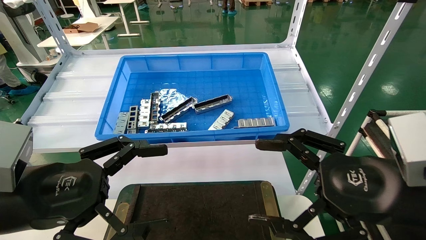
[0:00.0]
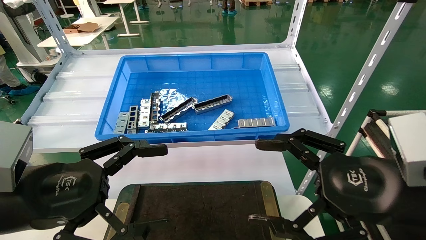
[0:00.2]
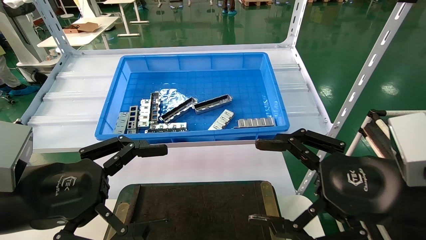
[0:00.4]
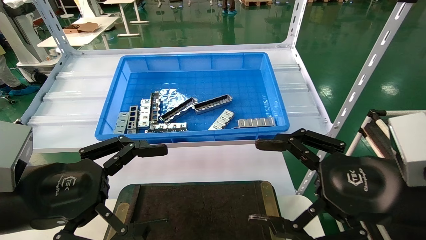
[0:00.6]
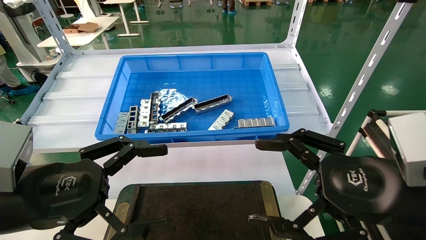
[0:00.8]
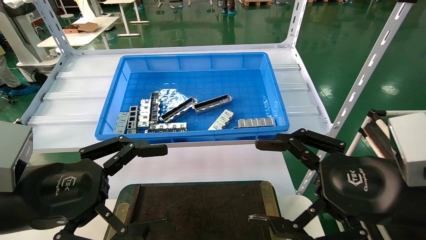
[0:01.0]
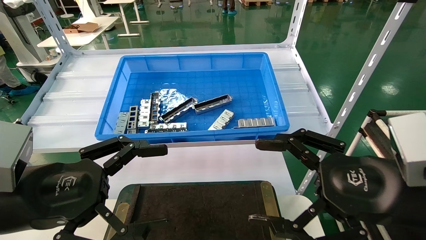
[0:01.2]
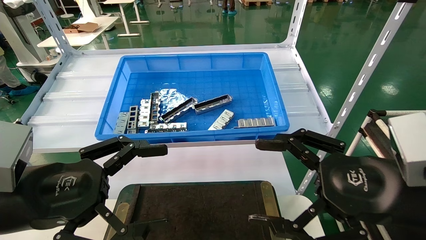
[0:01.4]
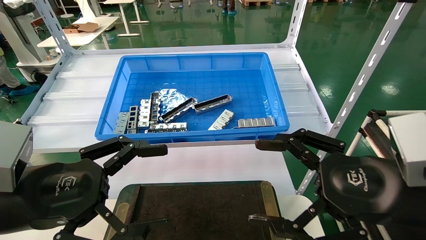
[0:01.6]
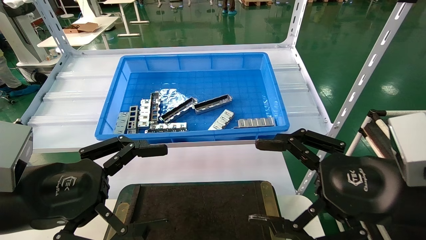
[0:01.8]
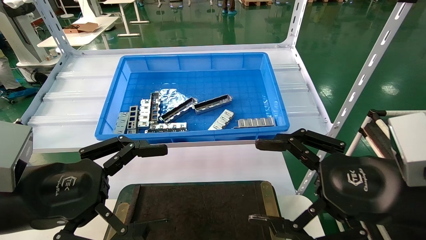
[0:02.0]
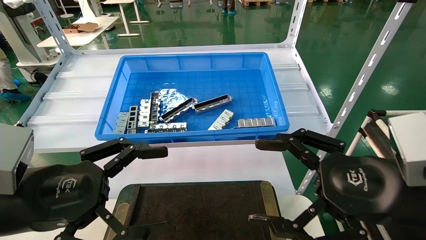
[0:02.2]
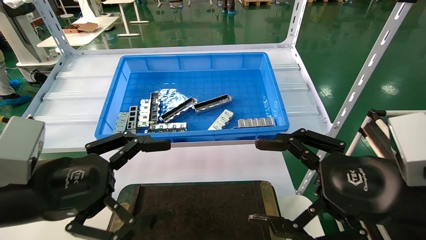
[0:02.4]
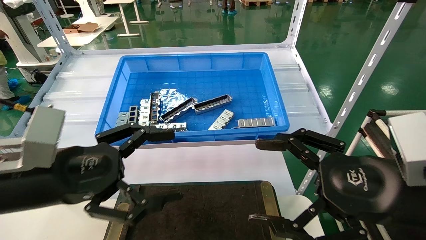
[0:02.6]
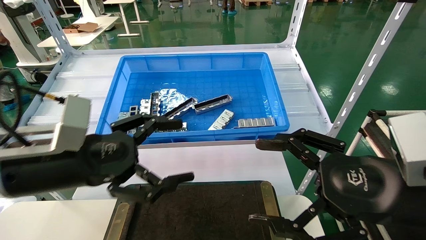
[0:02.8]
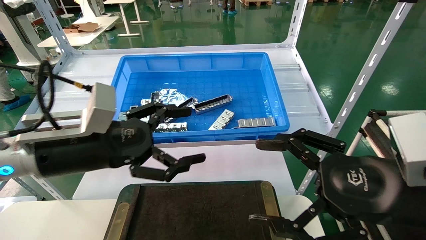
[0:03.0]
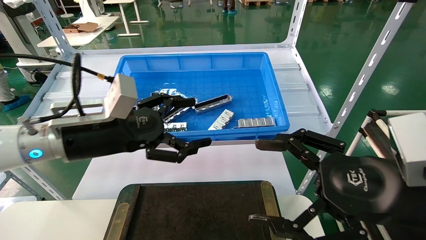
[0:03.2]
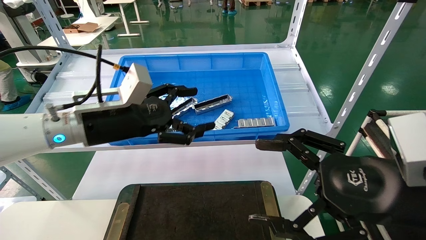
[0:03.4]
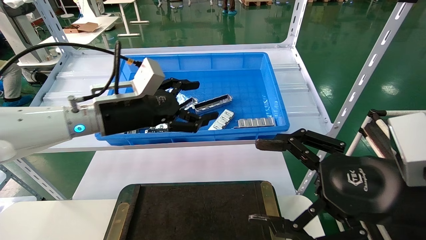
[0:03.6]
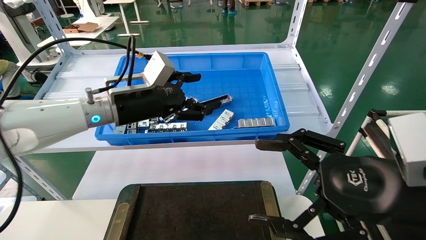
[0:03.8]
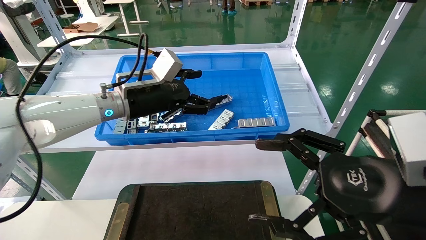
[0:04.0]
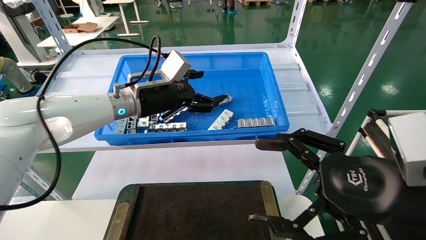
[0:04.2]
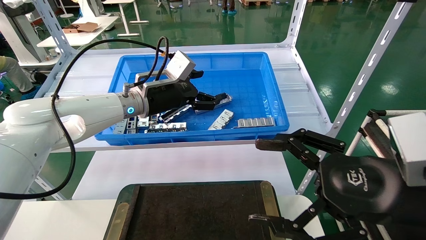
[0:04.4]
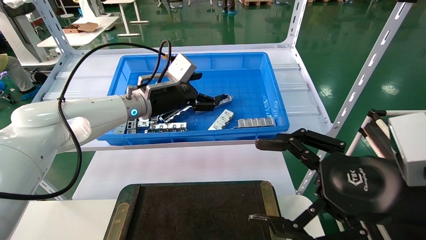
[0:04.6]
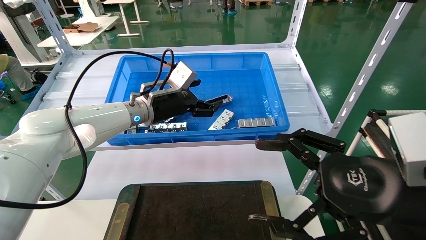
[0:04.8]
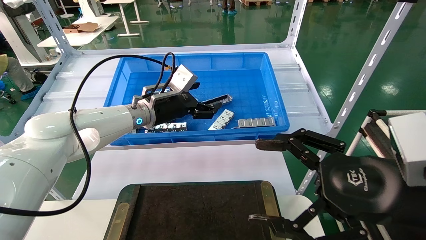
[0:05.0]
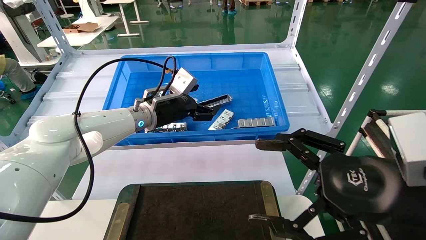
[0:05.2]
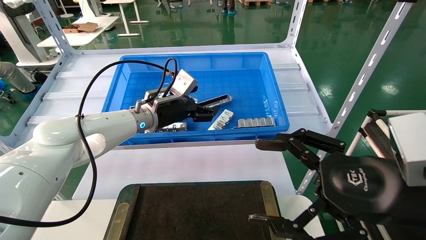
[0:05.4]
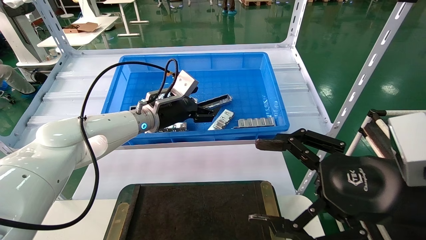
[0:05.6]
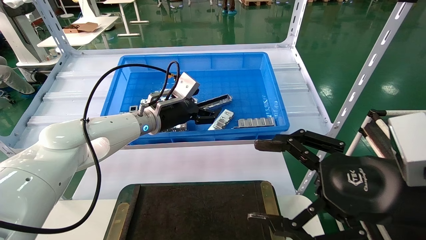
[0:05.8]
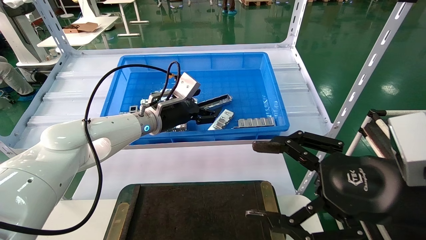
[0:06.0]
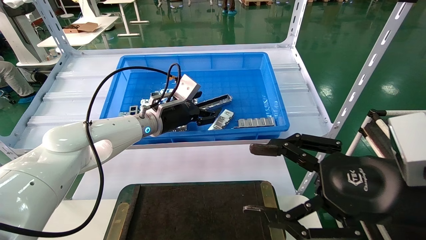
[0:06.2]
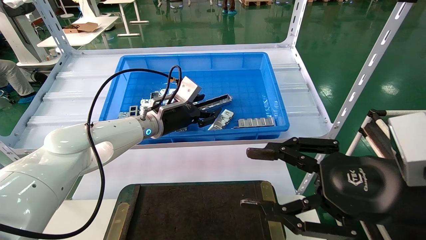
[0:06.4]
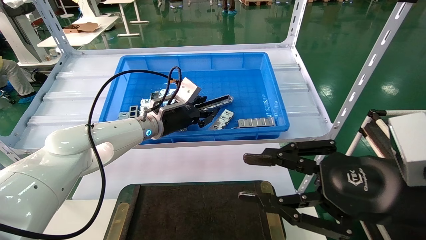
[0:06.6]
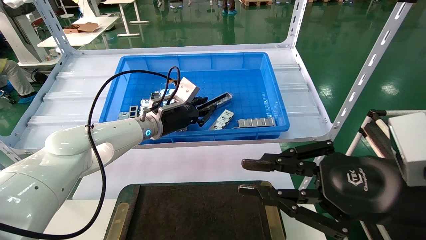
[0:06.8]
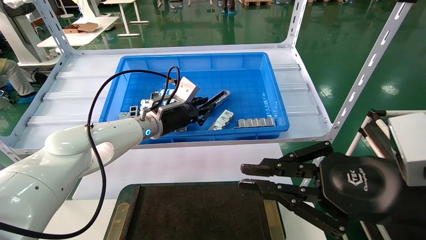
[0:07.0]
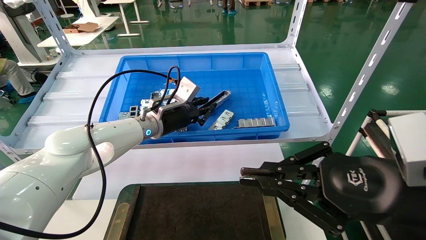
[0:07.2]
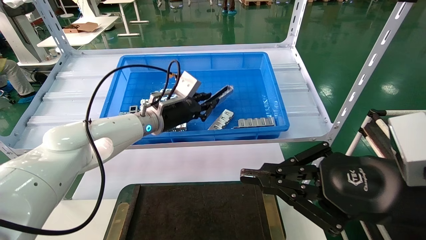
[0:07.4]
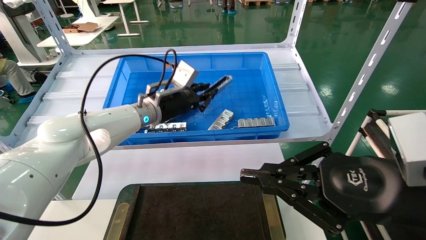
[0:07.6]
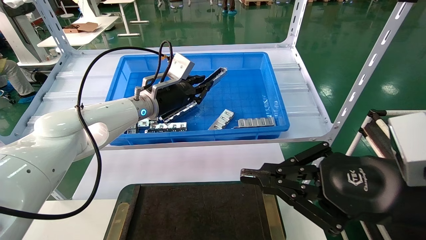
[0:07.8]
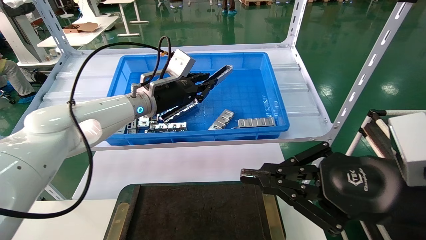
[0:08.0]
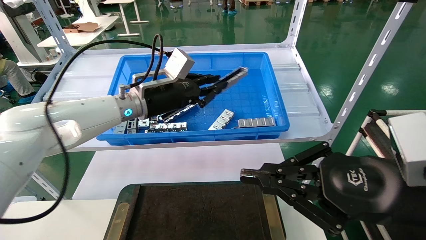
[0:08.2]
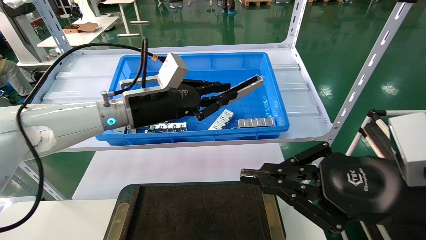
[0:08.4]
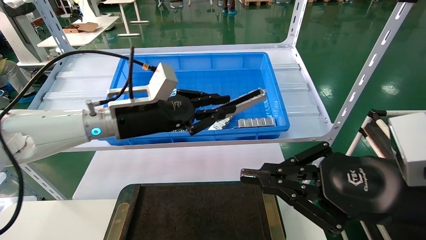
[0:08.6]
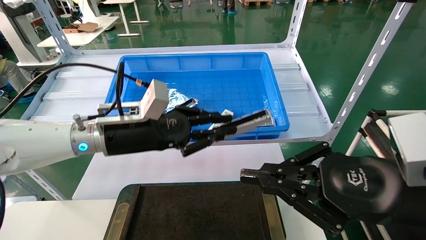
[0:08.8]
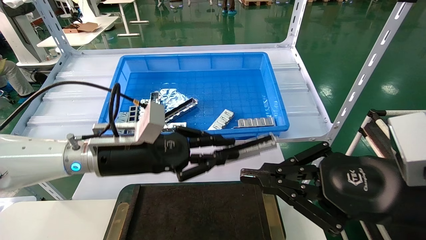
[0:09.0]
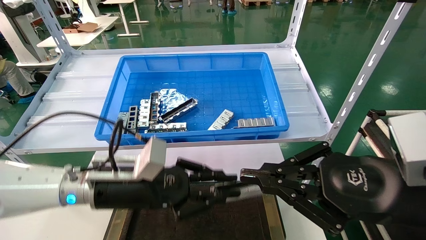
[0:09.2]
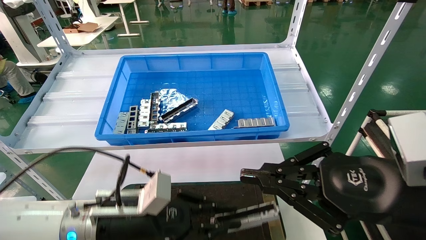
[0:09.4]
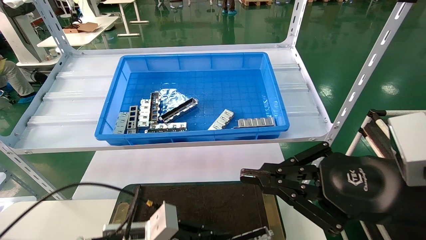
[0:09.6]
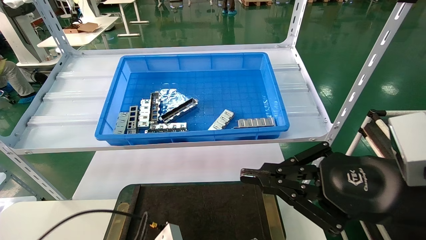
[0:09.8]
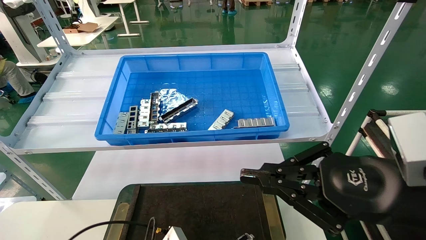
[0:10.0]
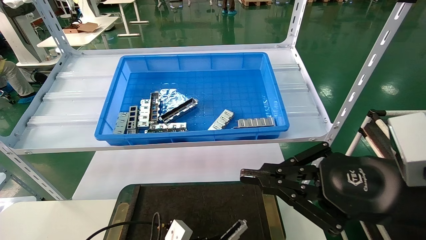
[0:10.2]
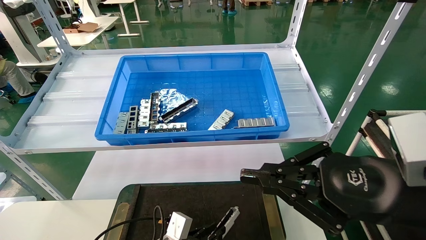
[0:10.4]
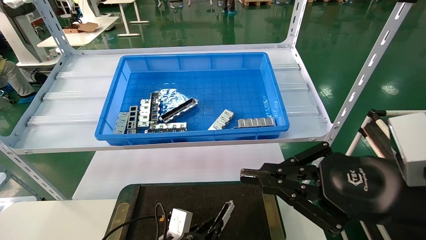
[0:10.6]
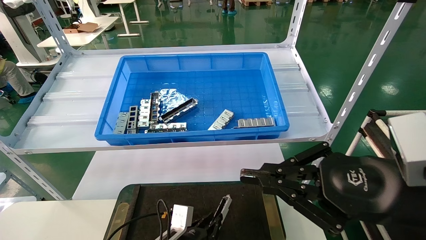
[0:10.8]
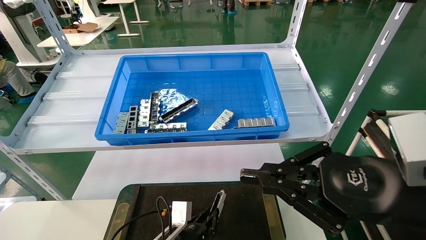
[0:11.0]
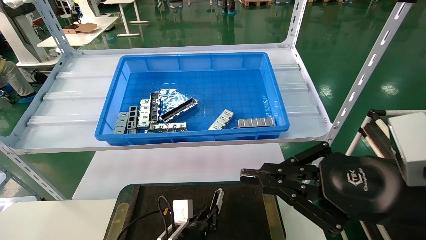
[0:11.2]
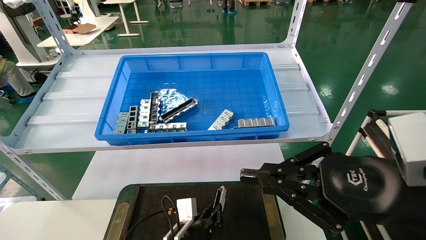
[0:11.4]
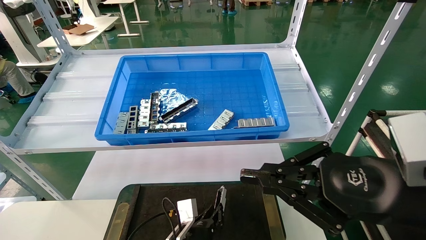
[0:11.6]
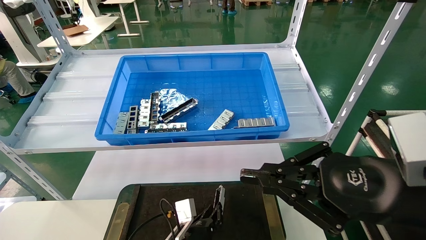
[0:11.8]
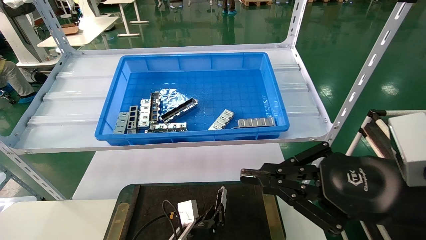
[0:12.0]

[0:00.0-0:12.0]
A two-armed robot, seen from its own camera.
Task of the whole recording: Grasp the part with one hand and place it on the black container.
Step, 0:02.4 to 0:06.8: Pick up the front USB bracket from the feeding area.
0:00.0 to 0:01.6: Both grippers stay put.
0:01.6 to 0:03.0: The left gripper travels forward by some 10 cm.
0:03.0 to 0:04.4: The left gripper moves forward and to the right, about 20 cm.
0:04.4 to 0:06.0: The left gripper heads downward, covering roughly 5 cm.
0:06.0 to 0:07.6: The right gripper closes its fingers. Meanwhile the left gripper closes up.
0:07.6 to 0:09.0: The left gripper shifts roughly 15 cm backward.
0:09.0 to 0:10.4: The left gripper travels downward by roughly 25 cm.
0:10.4 to 0:12.0: The left gripper shifts approximately 5 cm to the right.

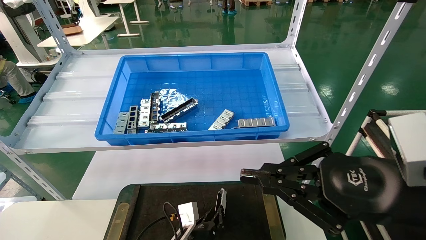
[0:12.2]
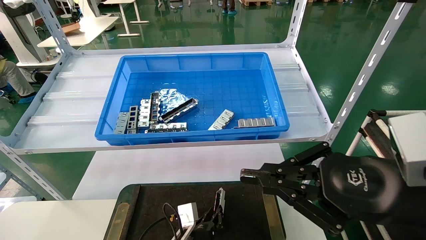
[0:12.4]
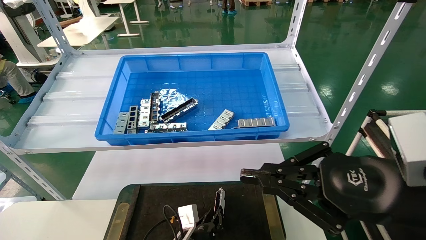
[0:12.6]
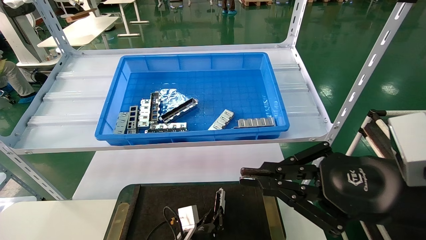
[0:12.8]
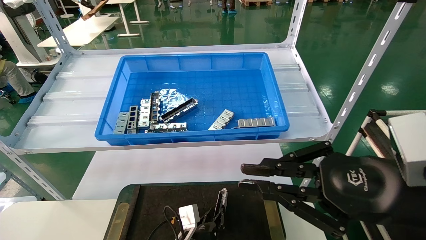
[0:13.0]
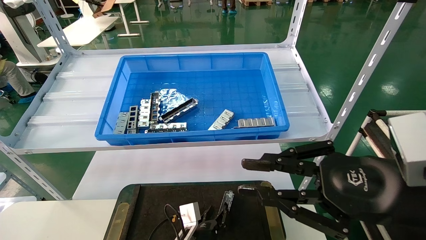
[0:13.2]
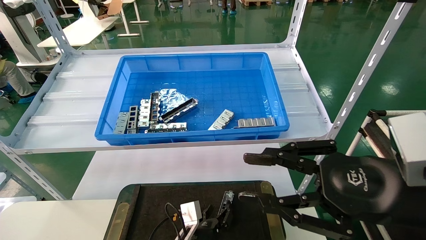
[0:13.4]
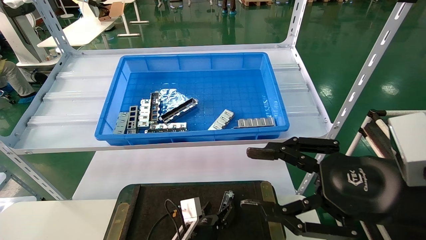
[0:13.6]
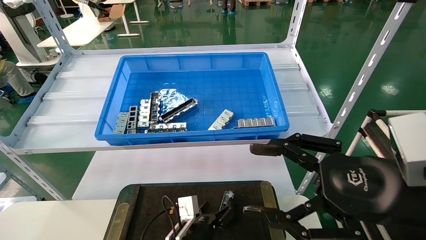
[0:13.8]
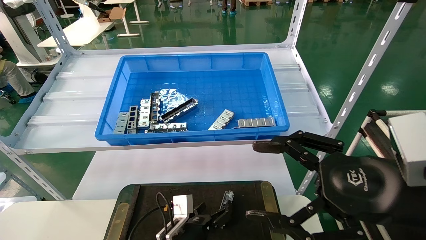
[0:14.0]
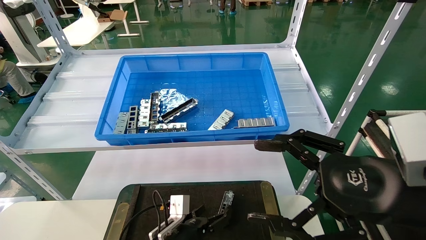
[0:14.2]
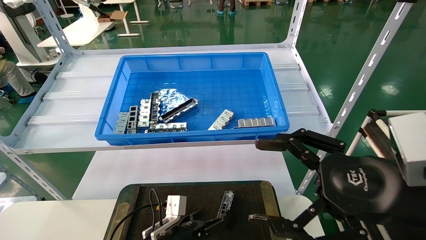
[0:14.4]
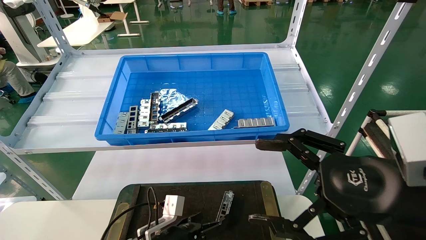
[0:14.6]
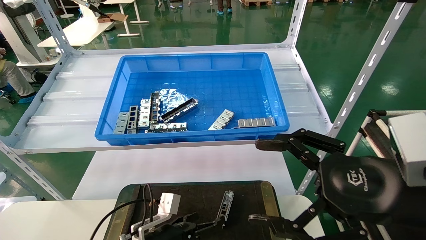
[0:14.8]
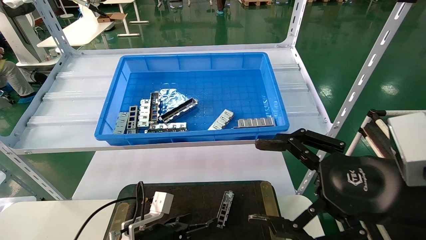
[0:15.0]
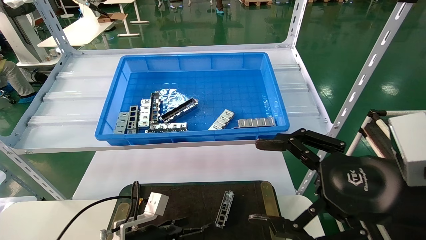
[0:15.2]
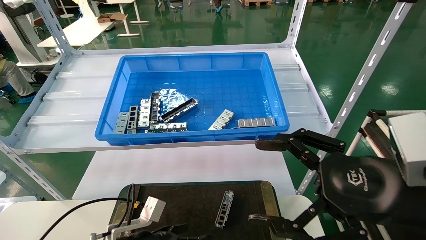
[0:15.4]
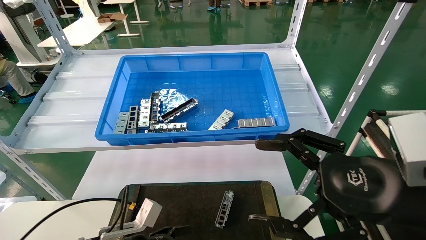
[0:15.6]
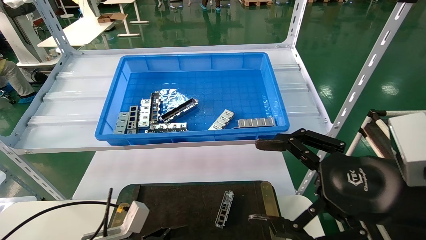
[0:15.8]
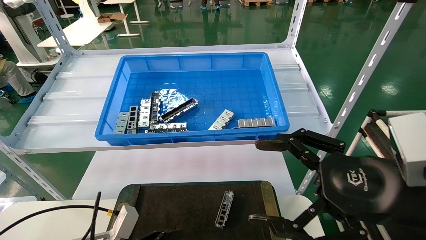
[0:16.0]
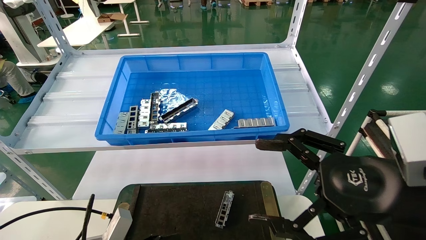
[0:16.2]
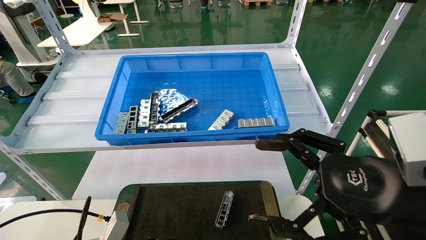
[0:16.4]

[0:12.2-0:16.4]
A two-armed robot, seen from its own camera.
Task of the whole recording: Grasp the part with one hand and place it on the black container.
0:12.2 to 0:13.6: The right gripper opens up. Meanwhile the left gripper opens up.
0:13.6 to 0:15.0: The right gripper opens, while the left gripper travels to the left and upward by approximately 15 cm, and opens its fingers.
0:15.0 to 0:16.4: The left gripper goes about 10 cm backward and to the left.
